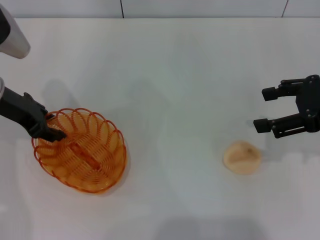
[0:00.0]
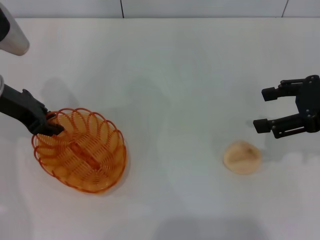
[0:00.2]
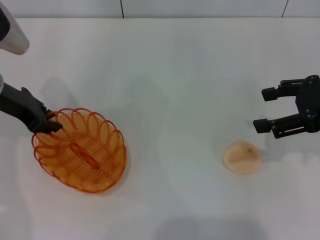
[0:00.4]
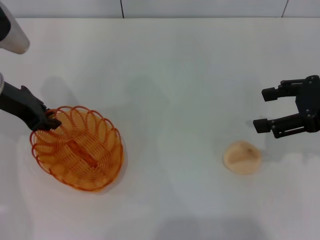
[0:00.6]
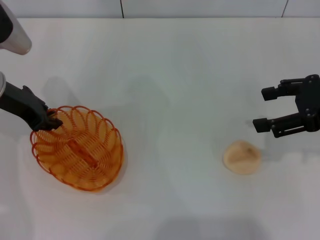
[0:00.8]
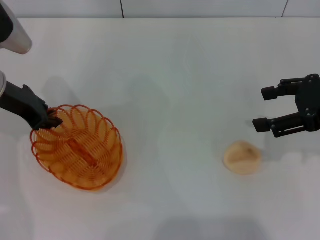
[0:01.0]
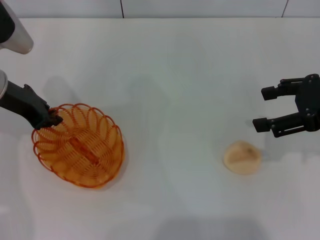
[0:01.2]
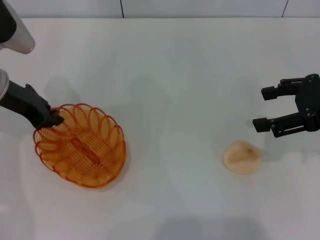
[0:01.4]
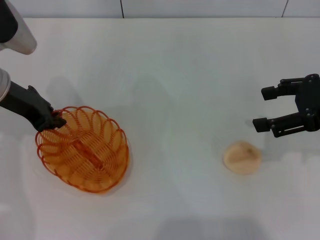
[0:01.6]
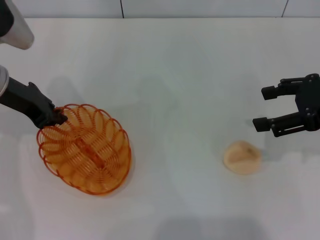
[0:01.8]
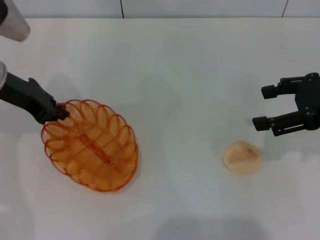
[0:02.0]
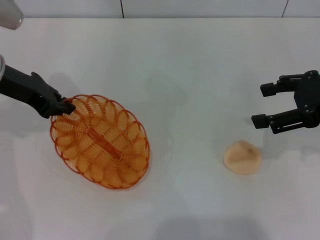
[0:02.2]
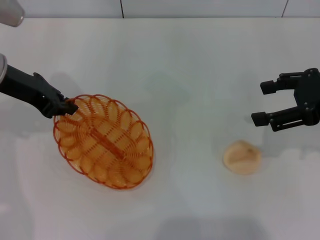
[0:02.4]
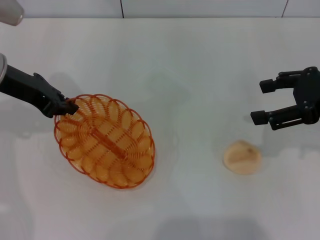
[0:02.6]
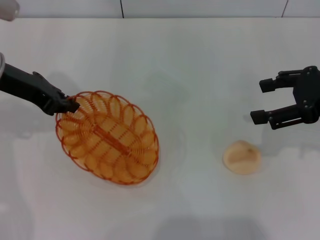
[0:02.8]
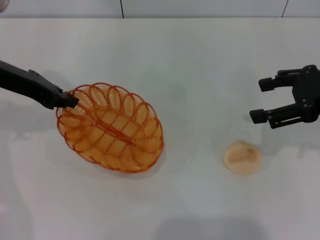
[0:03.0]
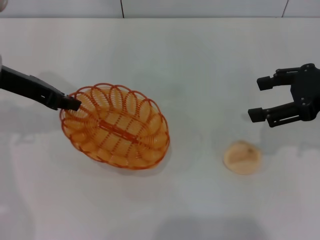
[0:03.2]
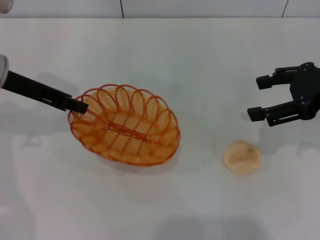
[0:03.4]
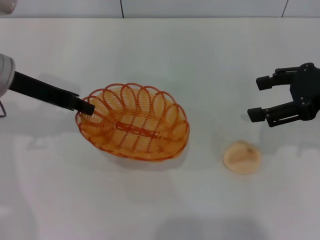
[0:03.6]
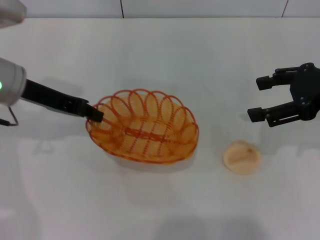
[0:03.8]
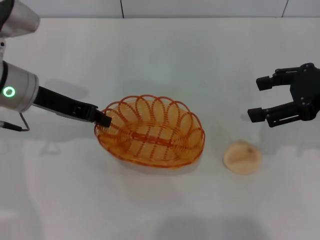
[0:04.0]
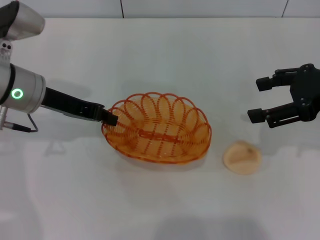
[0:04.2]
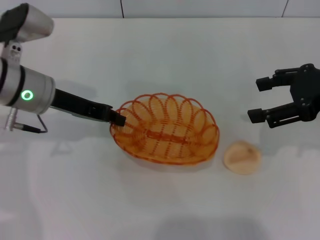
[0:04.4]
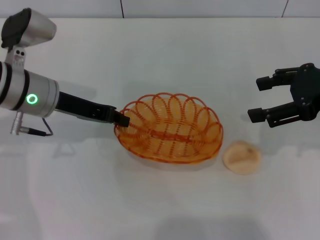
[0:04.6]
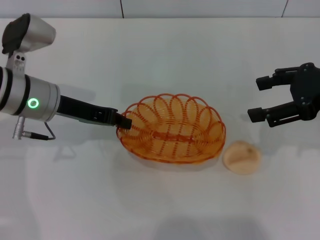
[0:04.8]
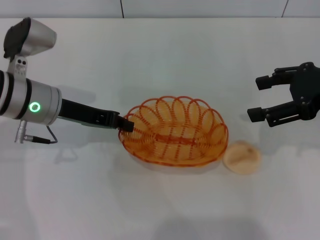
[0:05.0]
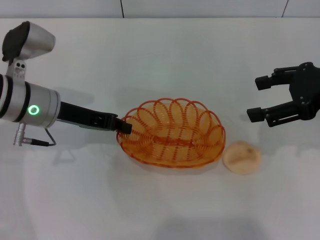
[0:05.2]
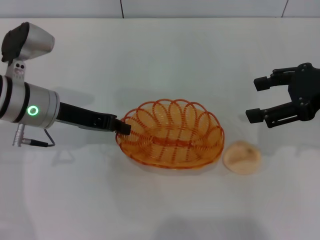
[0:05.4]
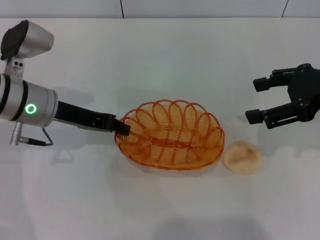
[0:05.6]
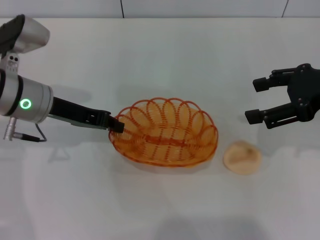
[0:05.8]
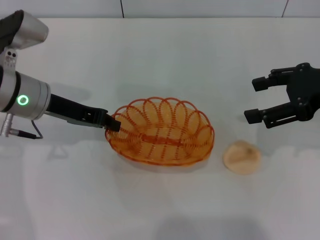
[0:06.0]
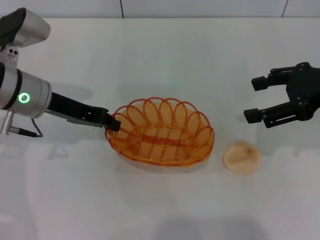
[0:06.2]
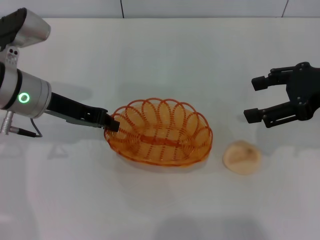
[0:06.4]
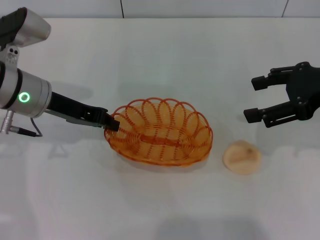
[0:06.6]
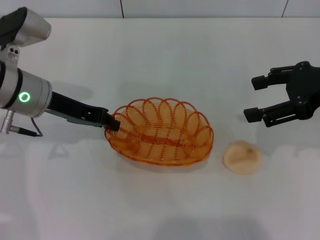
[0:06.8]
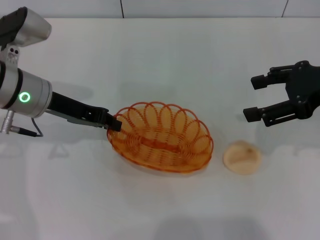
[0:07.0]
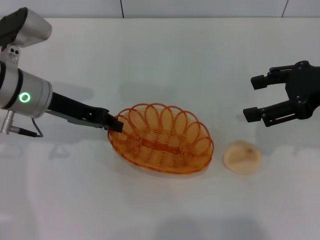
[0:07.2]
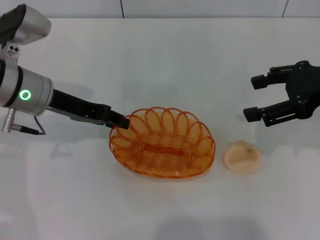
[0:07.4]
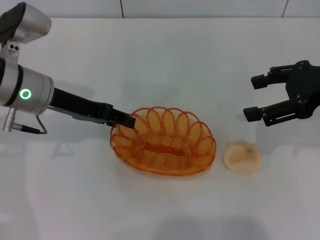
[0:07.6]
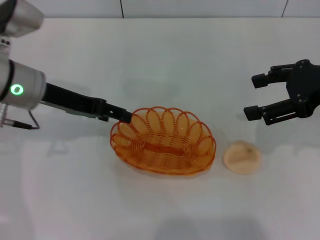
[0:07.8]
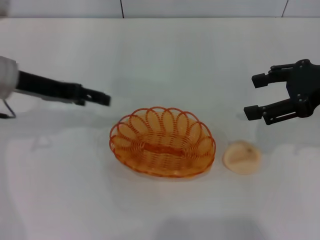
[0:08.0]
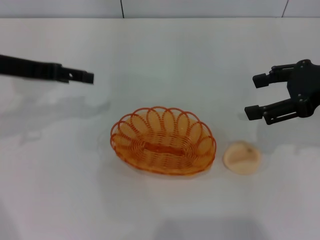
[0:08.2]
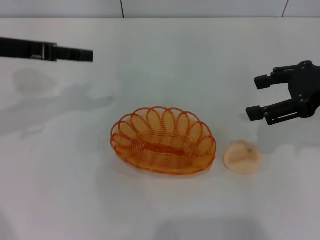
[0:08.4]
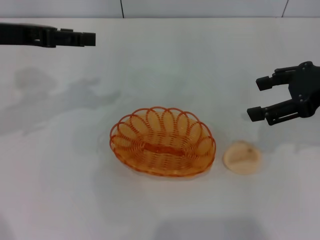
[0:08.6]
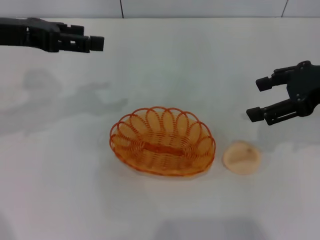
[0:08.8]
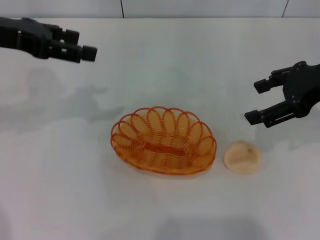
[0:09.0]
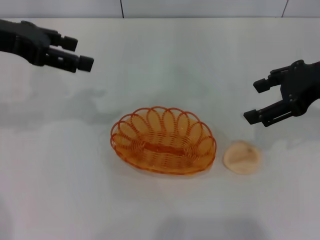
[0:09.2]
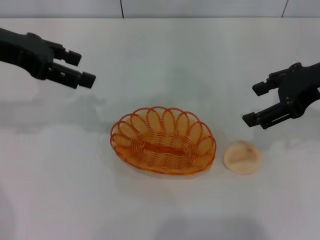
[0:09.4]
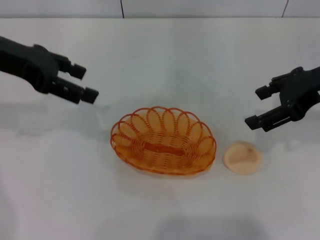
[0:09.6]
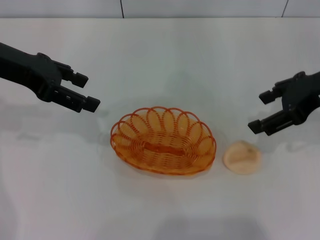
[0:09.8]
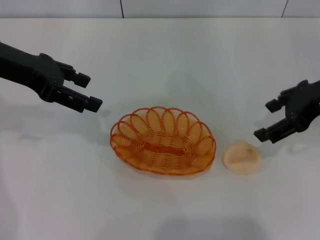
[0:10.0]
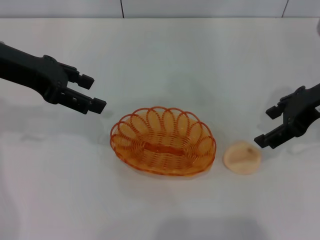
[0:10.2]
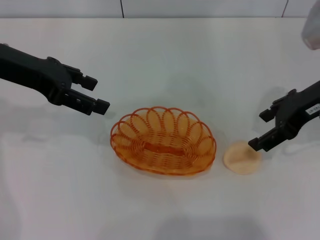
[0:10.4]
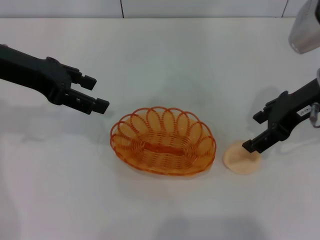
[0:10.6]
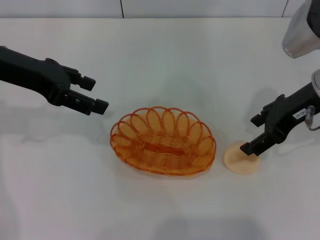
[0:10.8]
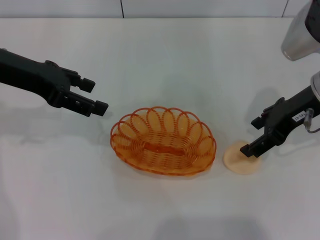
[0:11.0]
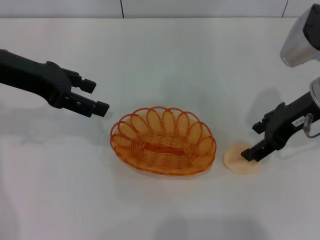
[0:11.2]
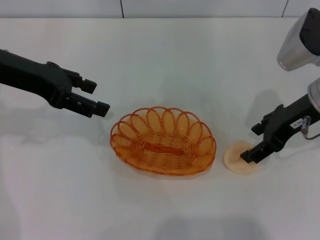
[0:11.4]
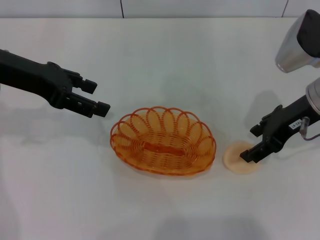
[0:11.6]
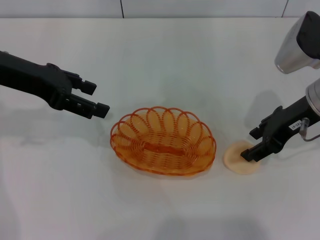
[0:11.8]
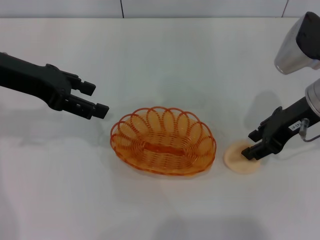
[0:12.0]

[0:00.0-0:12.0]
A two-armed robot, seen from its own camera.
Step, 0:00.0 to 0:02.2: Pick up the basket with the left gripper.
Step, 0:02.4 to 0:07.8: Place the basket in the center of view with the left gripper.
0:00.0 to 0:01.6: The left gripper closes.
0:01.6 to 0:03.0: The grippers move only a little.
0:03.0 to 0:04.4: The left gripper travels to the right and downward by some 5 cm.
0:04.4 to 0:06.0: The grippers make only small movements.
0:06.0 to 0:07.6: The left gripper opens.
0:07.6 to 0:09.0: The left gripper moves upward and to the left, approximately 10 cm, and opens.
0:09.0 to 0:10.4: The grippers make only small movements.
0:10.4 to 0:12.0: The grippers make only small movements.

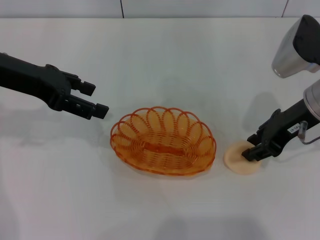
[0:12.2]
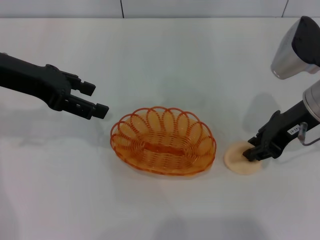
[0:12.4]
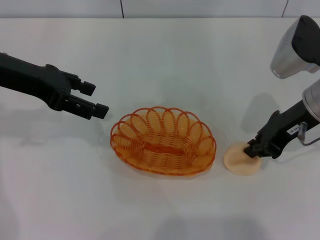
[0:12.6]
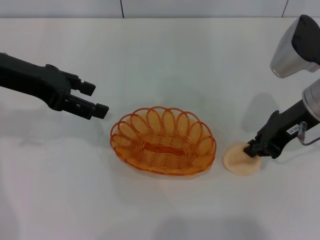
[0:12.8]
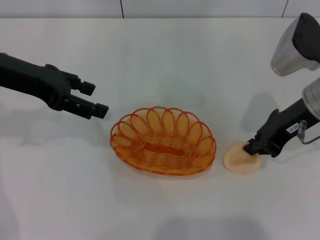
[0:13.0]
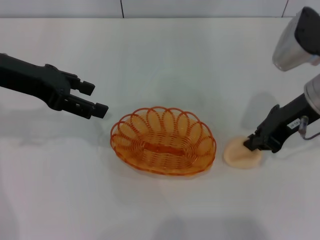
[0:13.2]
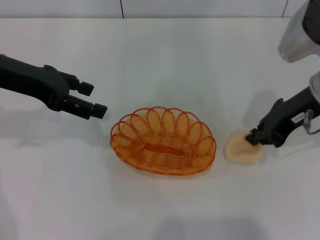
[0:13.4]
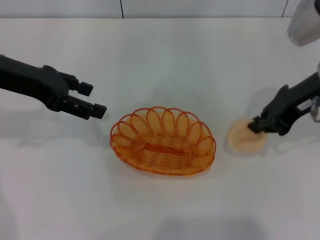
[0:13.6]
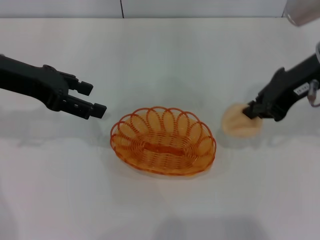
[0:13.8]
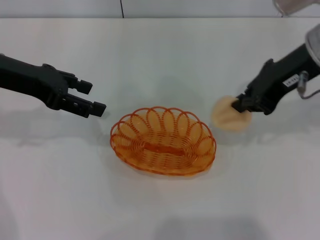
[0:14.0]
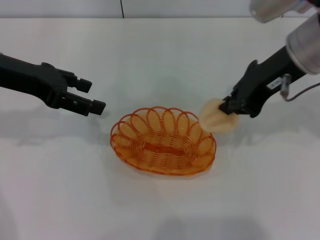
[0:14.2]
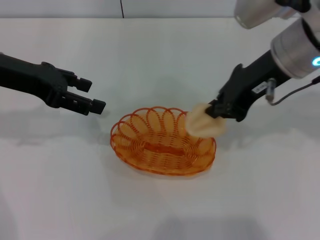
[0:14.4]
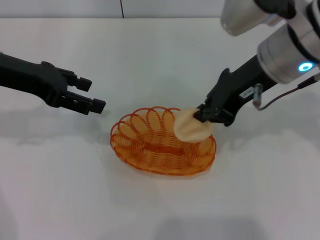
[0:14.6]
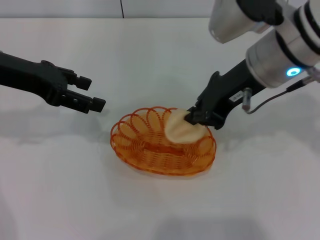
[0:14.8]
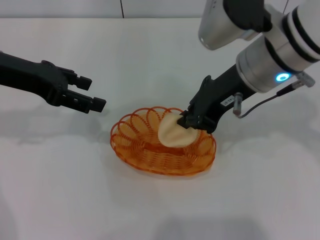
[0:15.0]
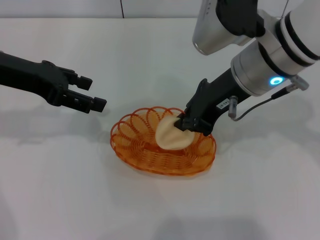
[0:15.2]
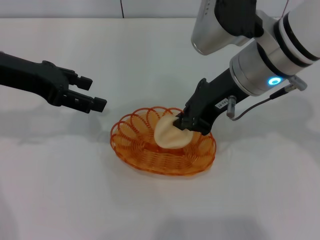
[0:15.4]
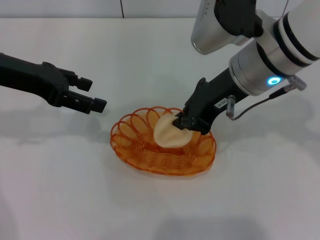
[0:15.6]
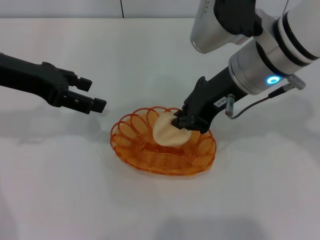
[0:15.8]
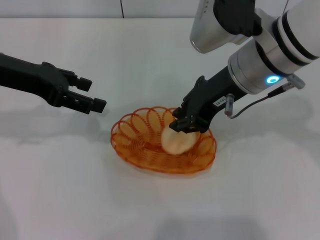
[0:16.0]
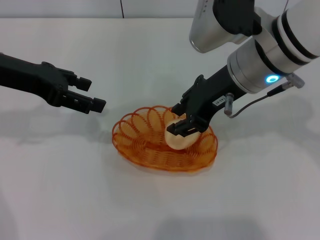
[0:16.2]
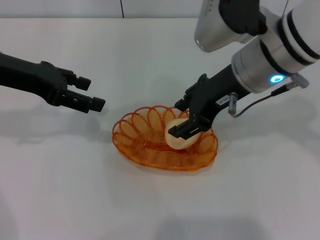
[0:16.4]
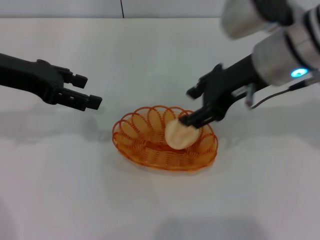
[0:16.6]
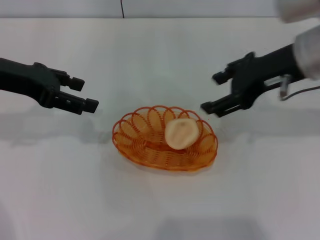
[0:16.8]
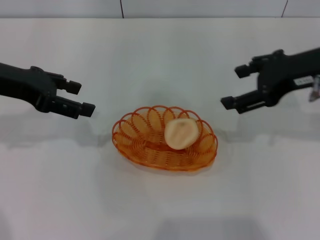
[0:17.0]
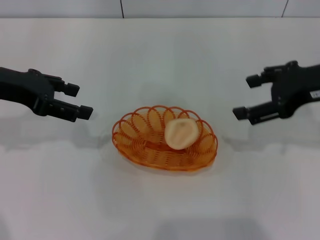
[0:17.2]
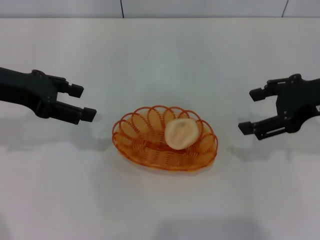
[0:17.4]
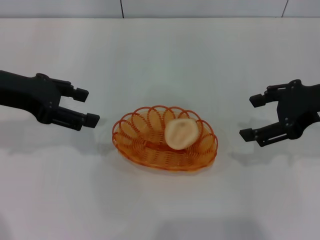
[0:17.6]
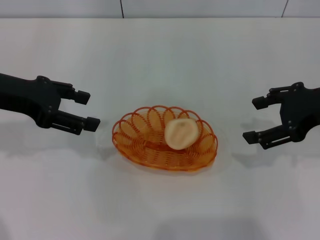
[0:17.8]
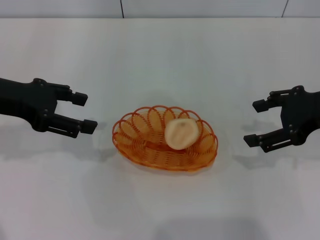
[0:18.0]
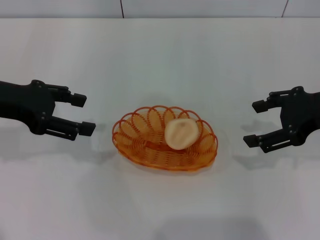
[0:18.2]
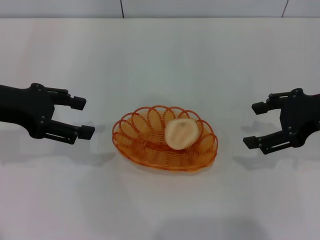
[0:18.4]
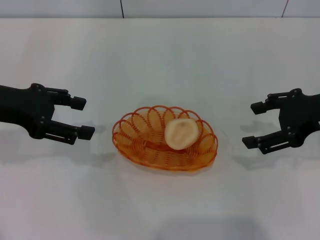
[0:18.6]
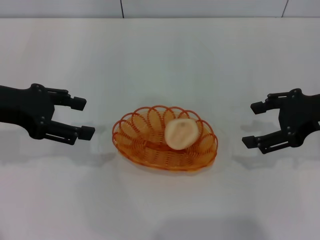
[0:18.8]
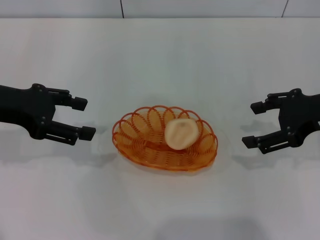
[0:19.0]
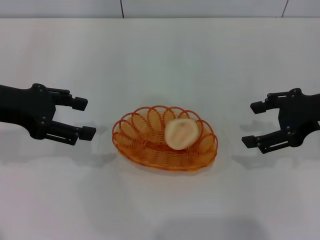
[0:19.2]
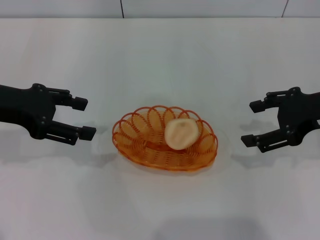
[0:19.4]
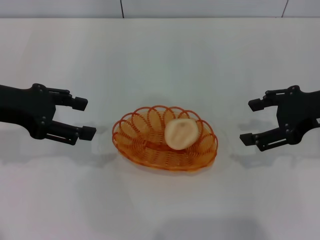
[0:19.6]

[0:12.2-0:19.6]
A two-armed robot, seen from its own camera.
Step, 0:13.8 to 0:16.6: Place the egg yolk pastry into the basket with the right gripper.
0:12.2 to 0:13.6: The right gripper closes up.
0:13.6 to 0:15.2: The right gripper travels to the left by about 10 cm.
0:15.2 to 0:16.6: The right gripper opens its fingers.
0:16.6 to 0:18.2: The right gripper shifts some 10 cm to the right.
0:18.2 to 0:19.6: Neither gripper changes place.
